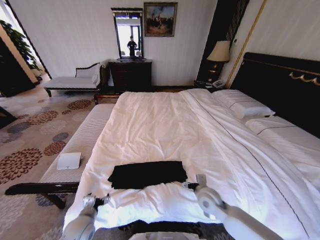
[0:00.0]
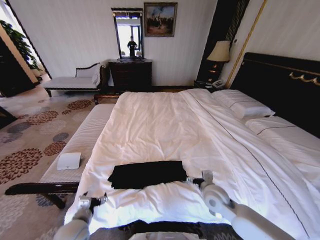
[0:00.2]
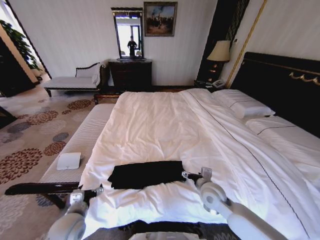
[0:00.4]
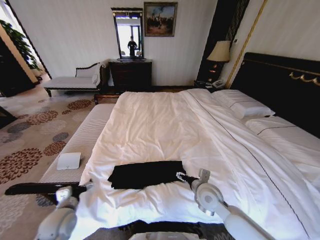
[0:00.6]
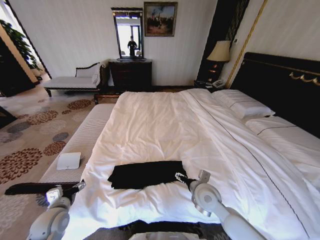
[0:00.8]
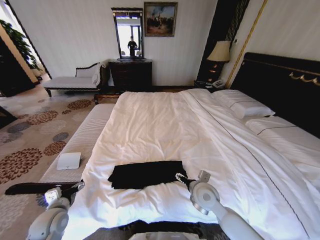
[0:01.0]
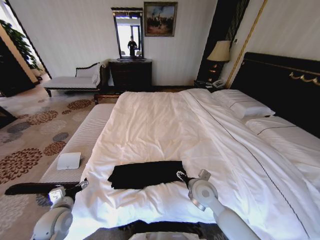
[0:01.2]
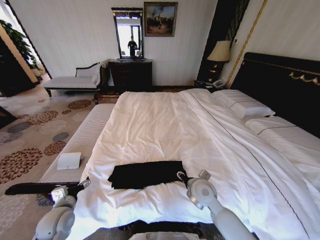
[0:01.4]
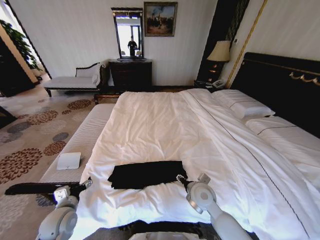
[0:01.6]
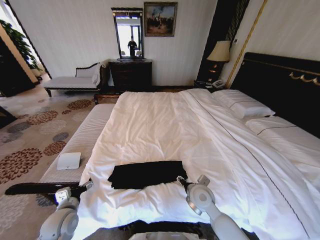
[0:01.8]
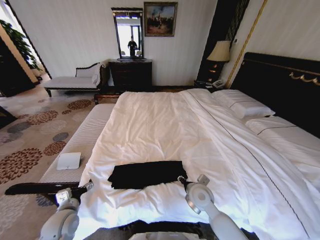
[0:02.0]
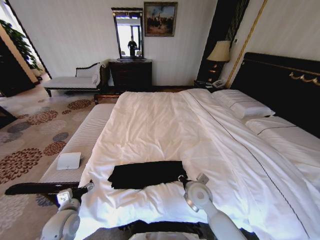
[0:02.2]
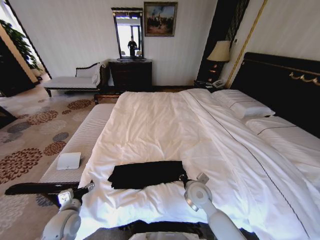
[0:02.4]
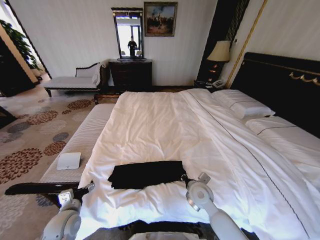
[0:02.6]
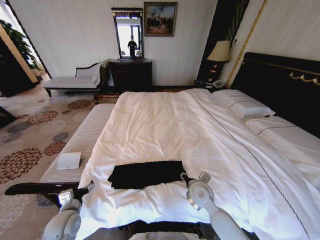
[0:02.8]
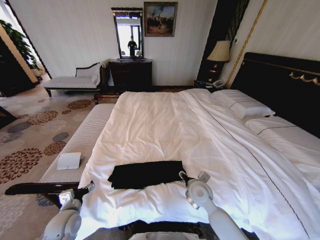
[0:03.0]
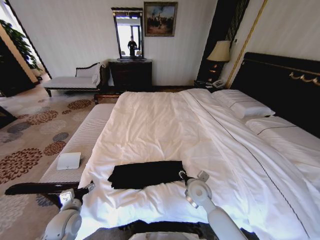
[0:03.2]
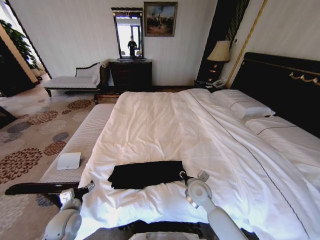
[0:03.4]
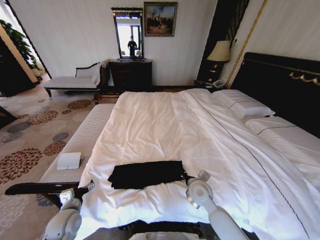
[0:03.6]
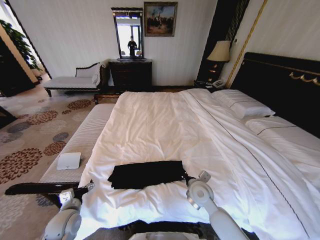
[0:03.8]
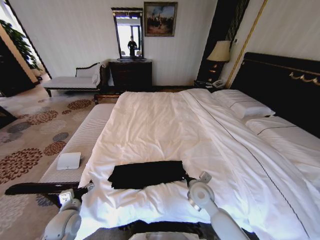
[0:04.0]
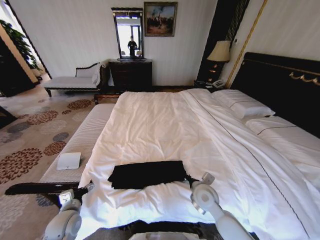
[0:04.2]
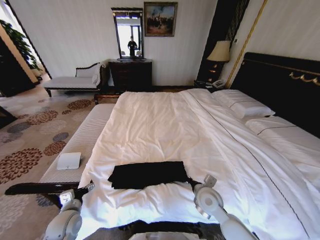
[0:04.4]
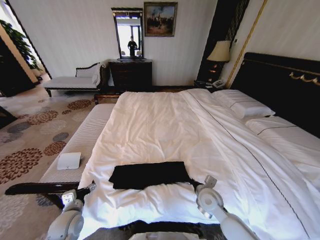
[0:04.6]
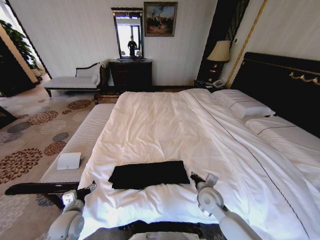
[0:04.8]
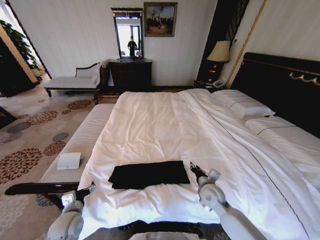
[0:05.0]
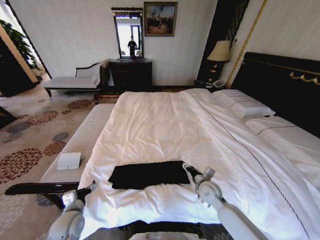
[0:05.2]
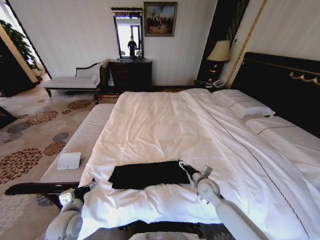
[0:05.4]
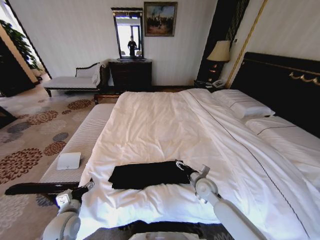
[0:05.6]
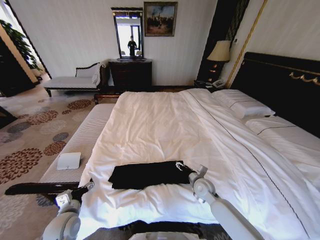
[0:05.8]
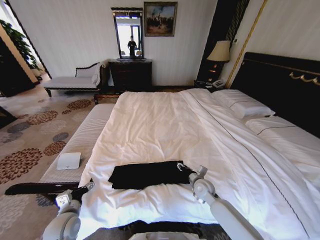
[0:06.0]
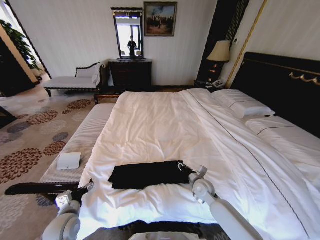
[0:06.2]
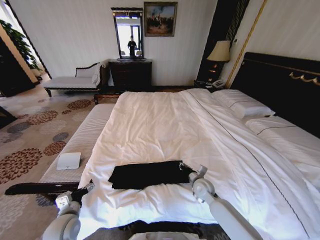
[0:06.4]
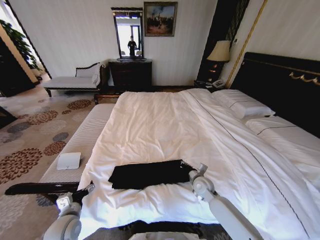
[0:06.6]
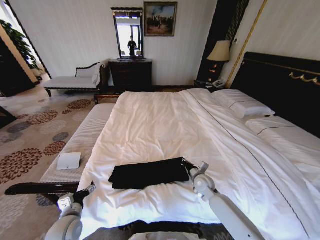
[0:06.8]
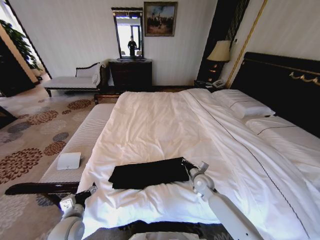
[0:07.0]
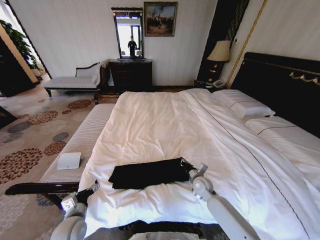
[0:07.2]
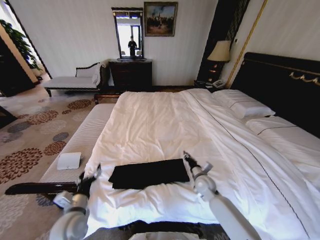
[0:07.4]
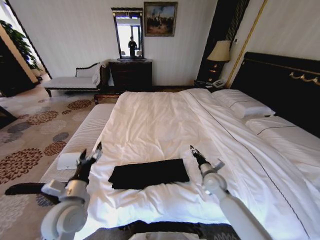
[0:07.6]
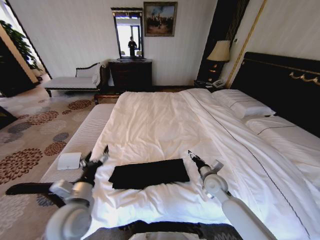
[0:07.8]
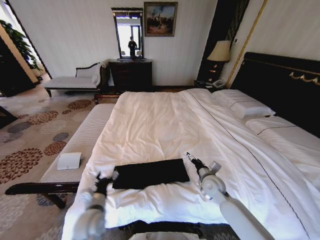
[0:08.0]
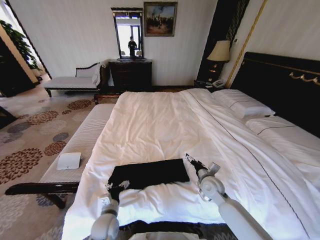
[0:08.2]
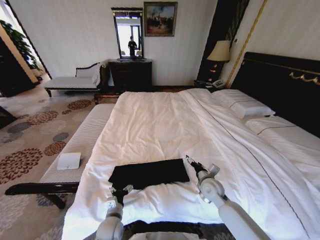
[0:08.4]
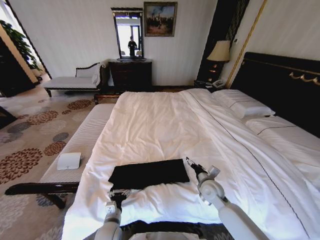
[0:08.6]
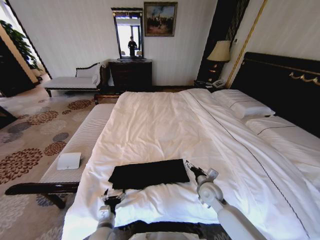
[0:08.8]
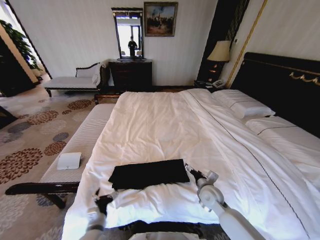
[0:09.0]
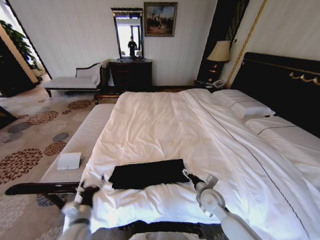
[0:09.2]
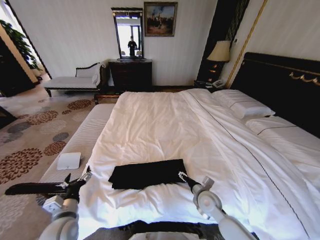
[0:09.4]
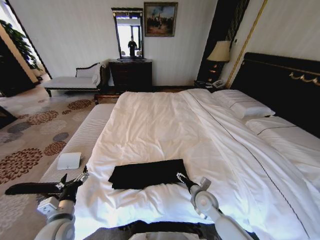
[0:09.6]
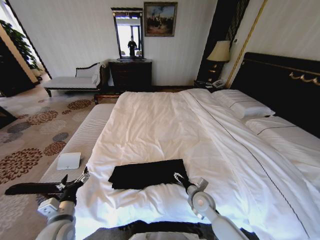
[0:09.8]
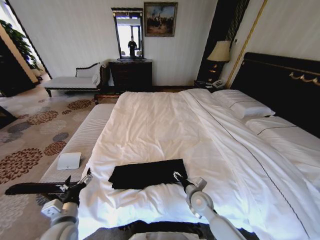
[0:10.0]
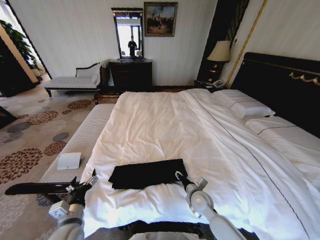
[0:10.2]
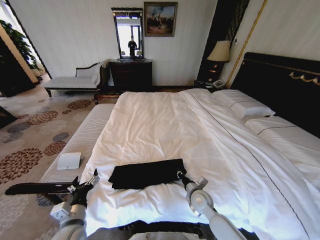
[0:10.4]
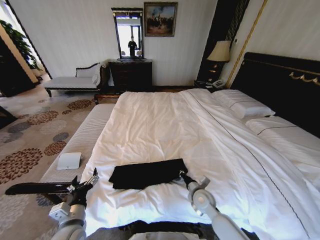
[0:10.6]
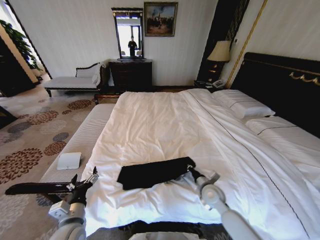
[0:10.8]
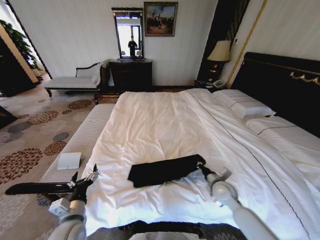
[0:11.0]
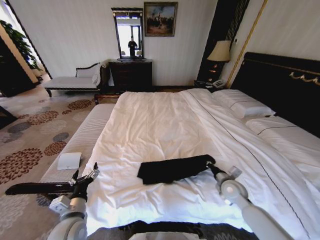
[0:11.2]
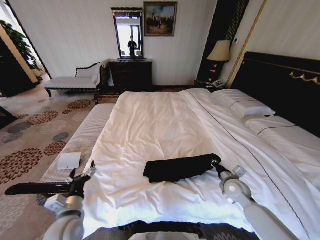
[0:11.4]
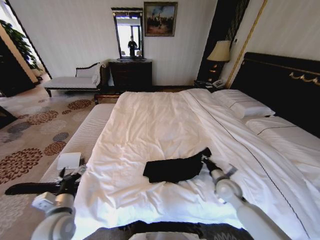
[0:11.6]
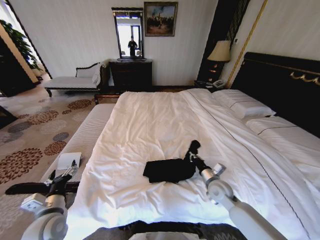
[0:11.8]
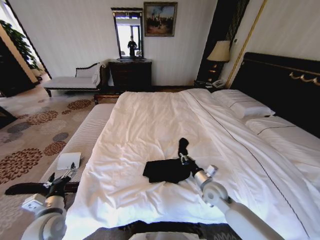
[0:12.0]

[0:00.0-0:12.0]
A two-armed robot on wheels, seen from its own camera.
Task of the whole recording: Fold the clothes on the bed.
0:00.0 to 0:01.6: The right gripper ends up about 5 cm from where it was. The left gripper is displaced to the left by some 5 cm.
0:01.6 to 0:03.0: The right gripper closes, then opens again.
0:03.0 to 0:04.4: The right gripper closes its fingers.
0:04.4 to 0:06.0: The right gripper is displaced forward and downward by approximately 10 cm, and opens its fingers.
0:06.0 to 0:07.6: The right gripper shifts by some 5 cm, and closes, then opens again. Meanwhile the left gripper travels upward and to the right by some 10 cm.
0:07.6 to 0:09.0: The left gripper heads downward, covering roughly 15 cm. The right gripper ends up roughly 5 cm from where it was, and opens.
0:09.0 to 0:10.4: The right gripper closes its fingers; the left gripper moves upward, approximately 10 cm.
0:10.4 to 0:12.0: The left gripper goes roughly 10 cm to the left; the right gripper moves approximately 15 cm to the right and comes back.

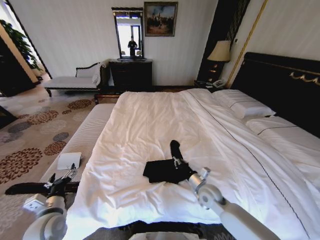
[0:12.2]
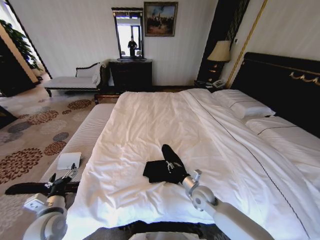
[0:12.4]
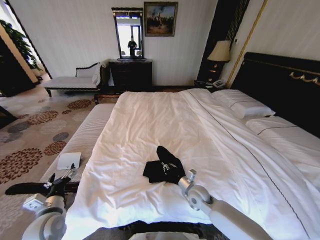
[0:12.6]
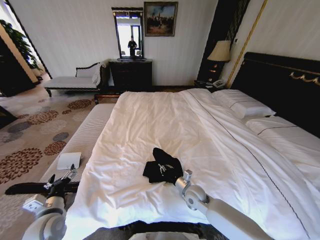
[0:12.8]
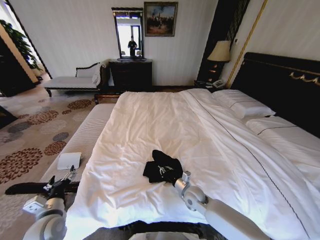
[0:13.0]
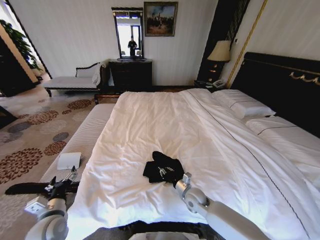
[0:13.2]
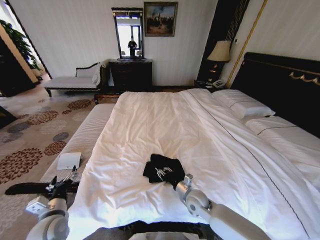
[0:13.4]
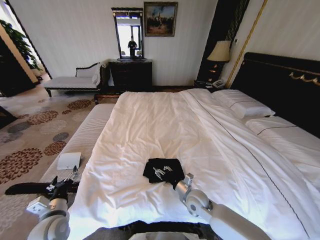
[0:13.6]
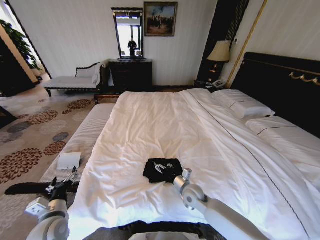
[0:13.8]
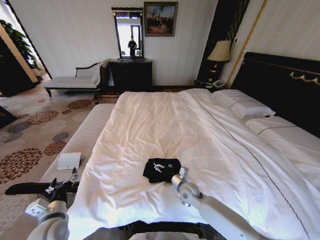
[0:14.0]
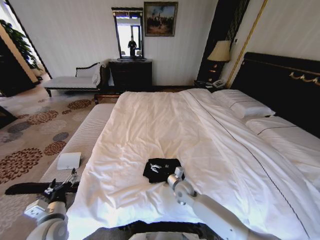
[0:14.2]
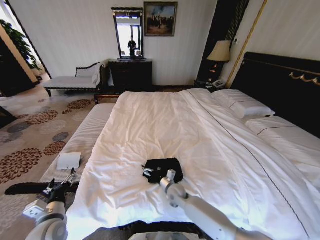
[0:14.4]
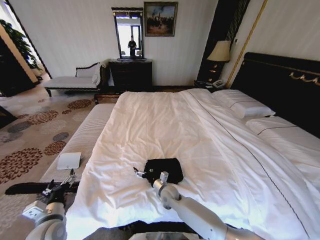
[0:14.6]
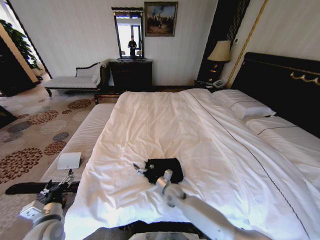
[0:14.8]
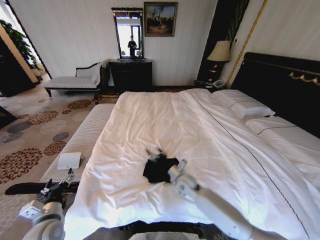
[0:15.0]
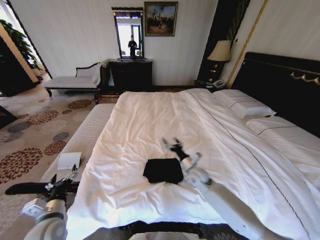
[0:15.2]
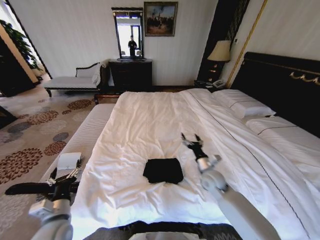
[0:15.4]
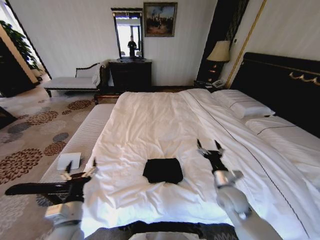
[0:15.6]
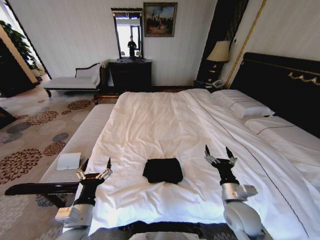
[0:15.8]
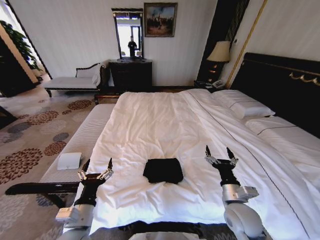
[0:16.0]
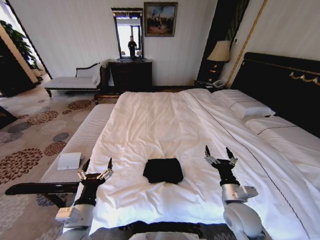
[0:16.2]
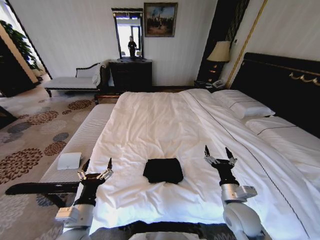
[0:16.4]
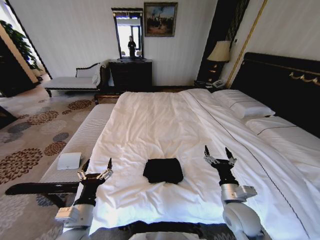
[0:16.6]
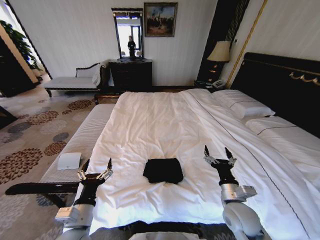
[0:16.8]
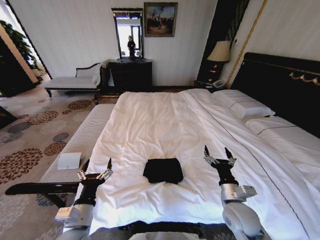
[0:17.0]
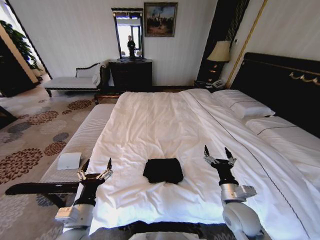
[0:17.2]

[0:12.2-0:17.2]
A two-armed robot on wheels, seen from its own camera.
Task of the whole recording: Fold the clothes on the bed.
0:12.2 to 0:13.8: The right gripper goes roughly 5 cm to the left, and opens.
0:13.8 to 0:15.6: The right gripper shifts about 15 cm to the right and upward. The left gripper is displaced to the right by some 5 cm.
0:15.6 to 0:17.2: The right gripper heads backward, covering about 5 cm.
